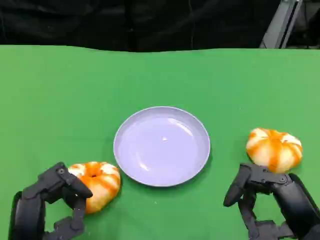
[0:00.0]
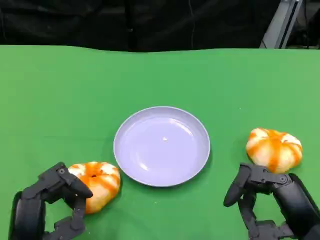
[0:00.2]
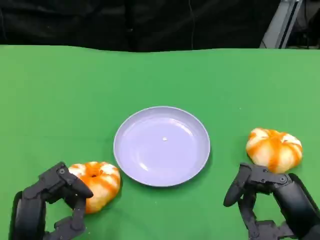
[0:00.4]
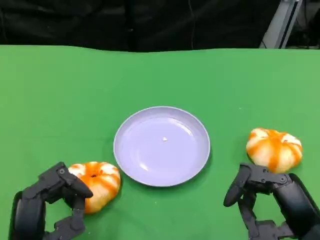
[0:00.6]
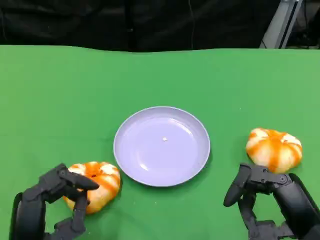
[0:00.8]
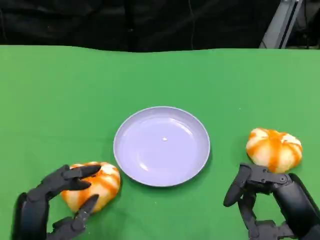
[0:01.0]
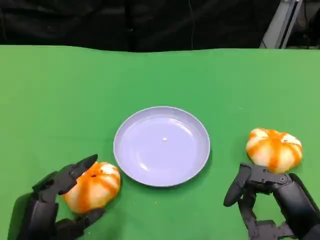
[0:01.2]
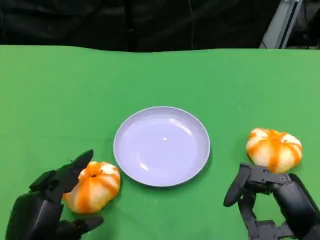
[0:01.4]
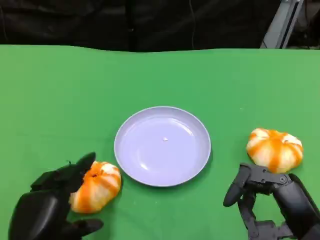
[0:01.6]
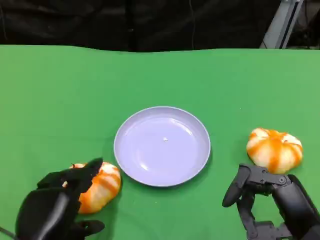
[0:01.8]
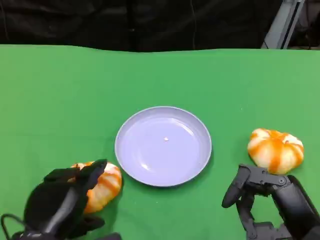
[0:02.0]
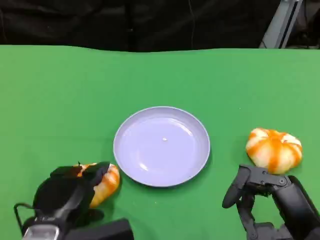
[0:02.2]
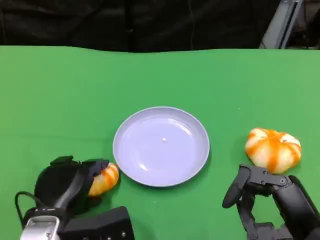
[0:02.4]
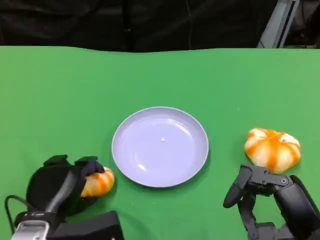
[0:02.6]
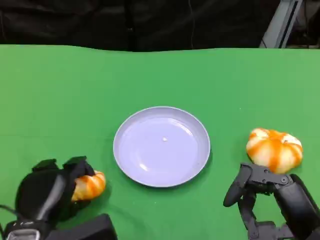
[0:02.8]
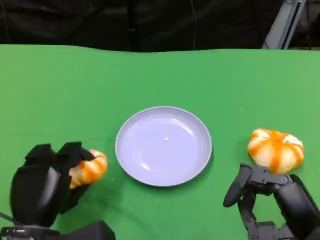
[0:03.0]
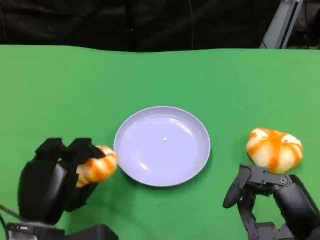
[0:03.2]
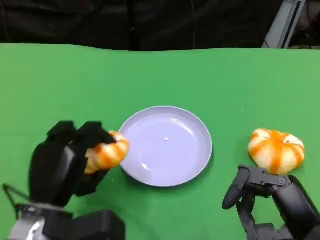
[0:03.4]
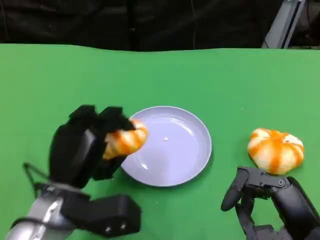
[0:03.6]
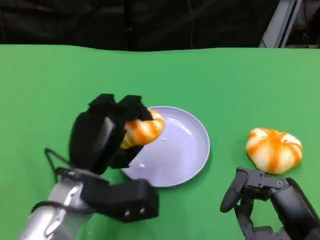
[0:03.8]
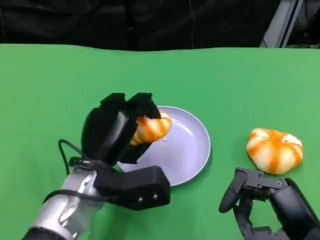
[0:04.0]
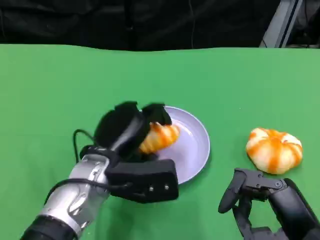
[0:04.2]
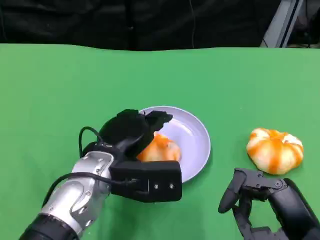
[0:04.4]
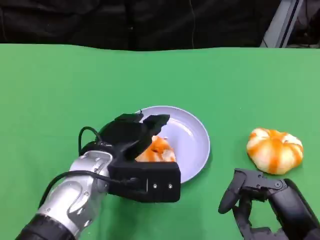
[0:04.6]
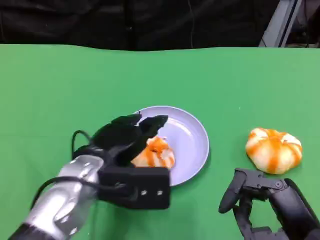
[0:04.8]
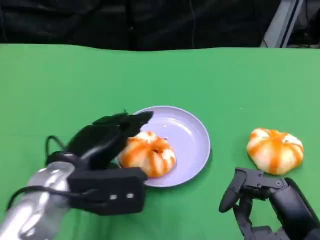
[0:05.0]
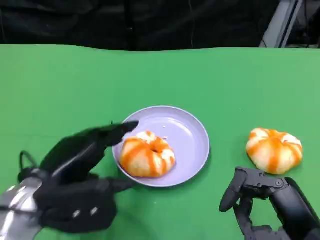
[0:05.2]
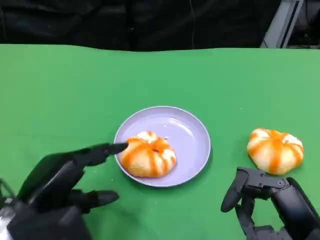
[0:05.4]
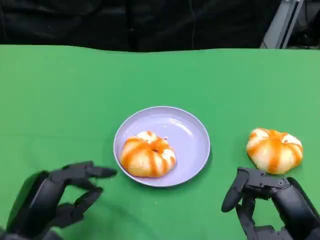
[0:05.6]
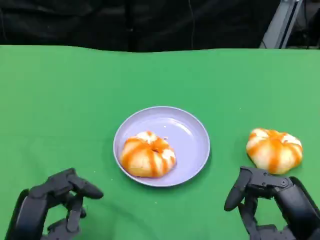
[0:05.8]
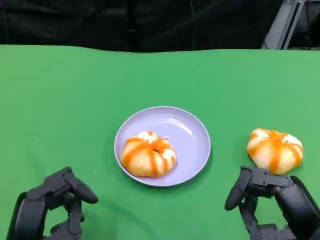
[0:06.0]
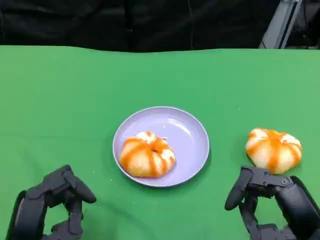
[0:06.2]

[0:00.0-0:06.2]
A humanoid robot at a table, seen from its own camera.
Task of the whole recording: Grasp the bread from the table and place it into the plate.
0:03.2 to 0:04.6: The left hand is displaced to the right and forward by roughly 10 cm.
0:04.6 to 0:06.2: The left hand travels backward and to the left by about 15 cm.

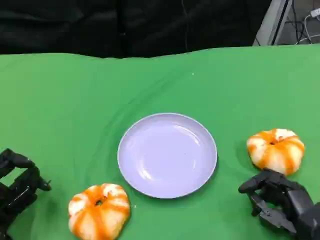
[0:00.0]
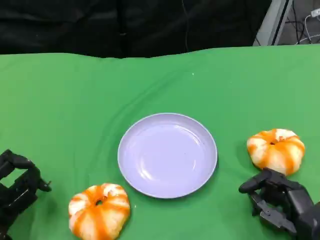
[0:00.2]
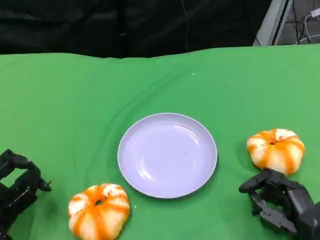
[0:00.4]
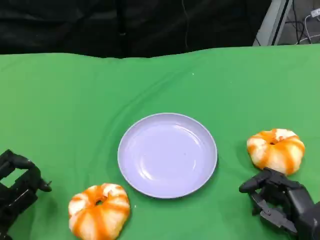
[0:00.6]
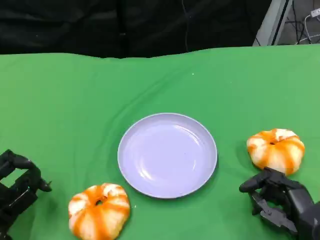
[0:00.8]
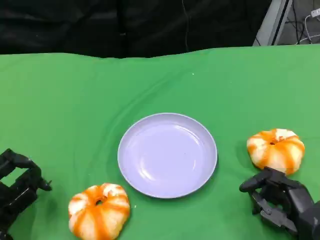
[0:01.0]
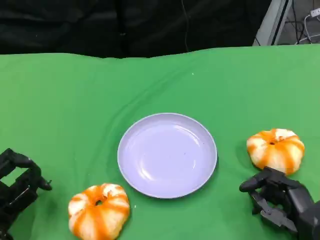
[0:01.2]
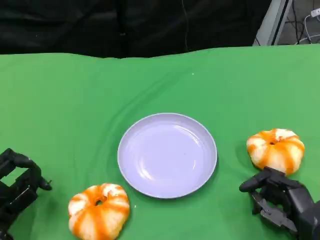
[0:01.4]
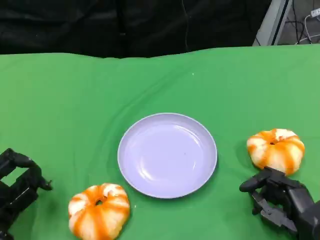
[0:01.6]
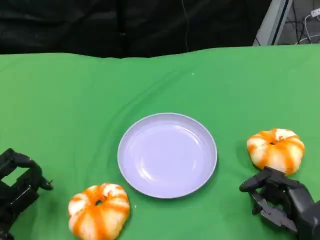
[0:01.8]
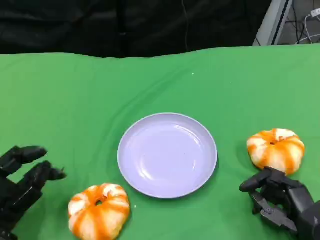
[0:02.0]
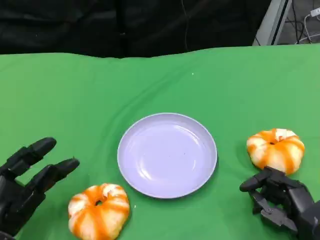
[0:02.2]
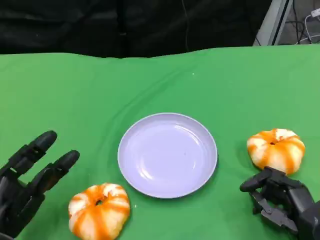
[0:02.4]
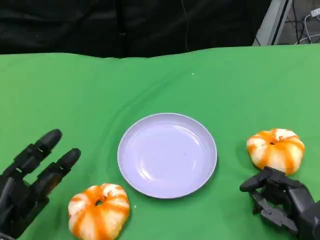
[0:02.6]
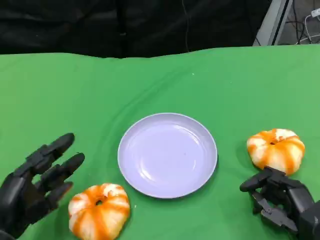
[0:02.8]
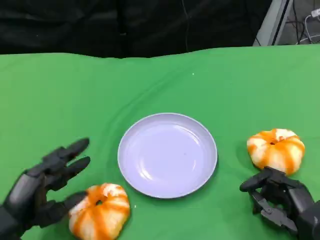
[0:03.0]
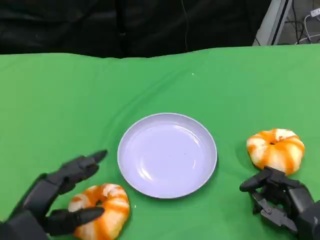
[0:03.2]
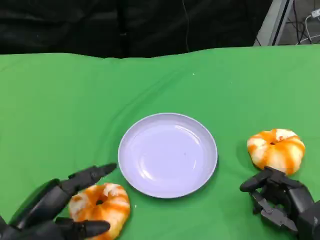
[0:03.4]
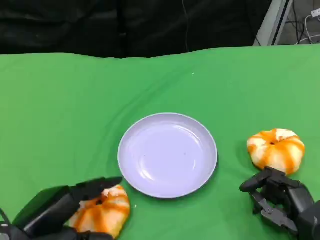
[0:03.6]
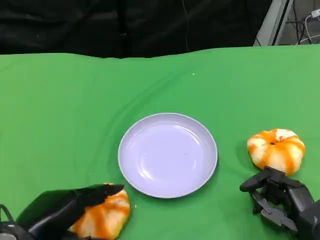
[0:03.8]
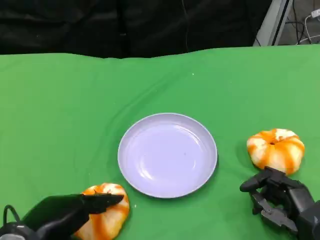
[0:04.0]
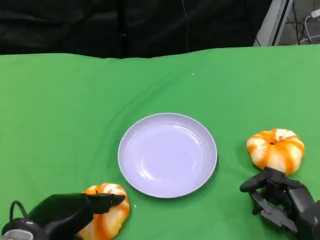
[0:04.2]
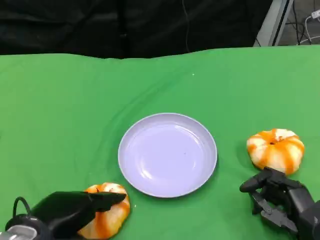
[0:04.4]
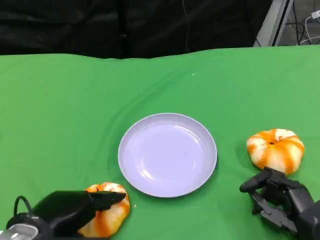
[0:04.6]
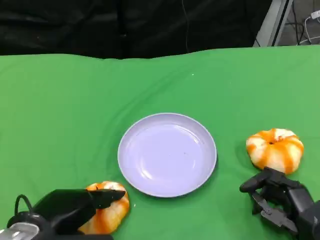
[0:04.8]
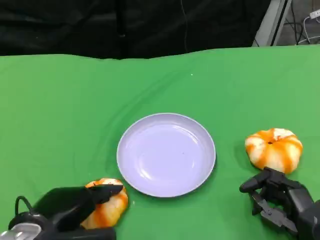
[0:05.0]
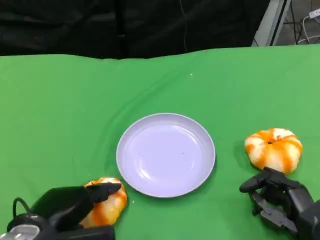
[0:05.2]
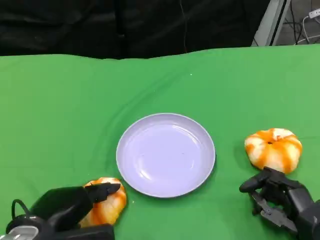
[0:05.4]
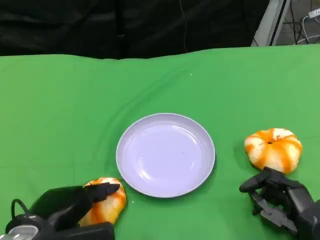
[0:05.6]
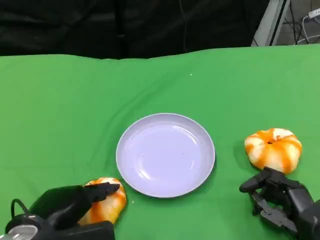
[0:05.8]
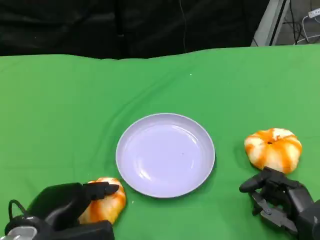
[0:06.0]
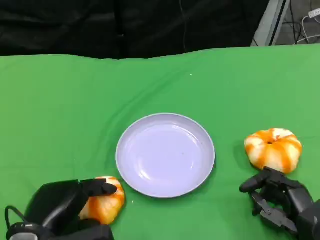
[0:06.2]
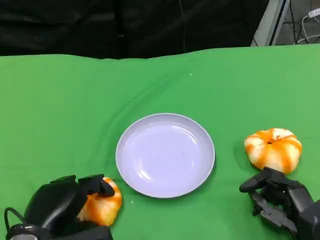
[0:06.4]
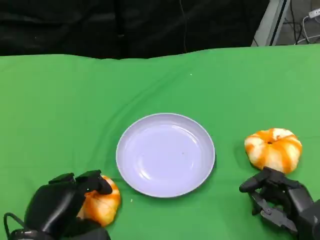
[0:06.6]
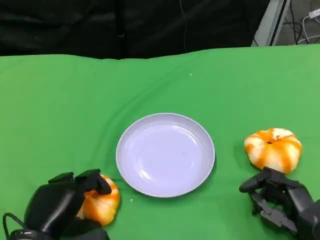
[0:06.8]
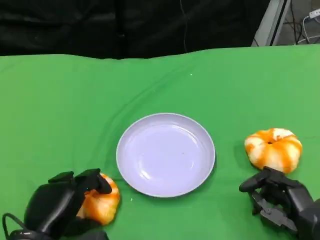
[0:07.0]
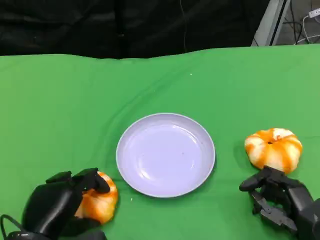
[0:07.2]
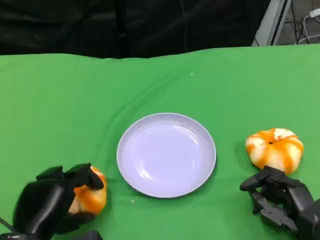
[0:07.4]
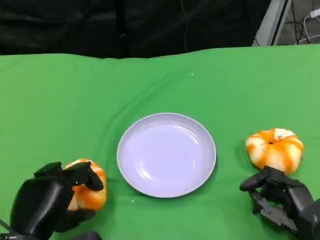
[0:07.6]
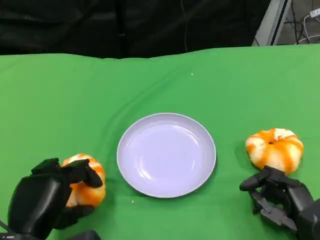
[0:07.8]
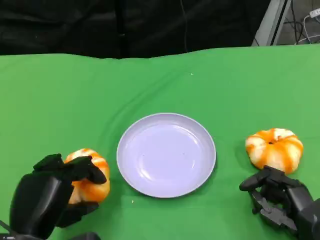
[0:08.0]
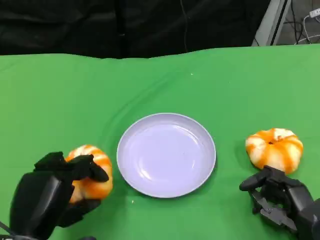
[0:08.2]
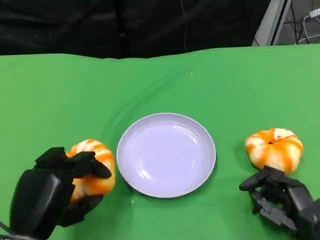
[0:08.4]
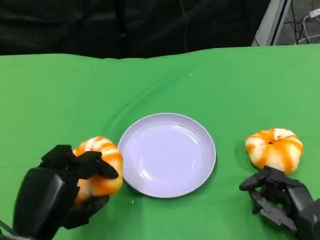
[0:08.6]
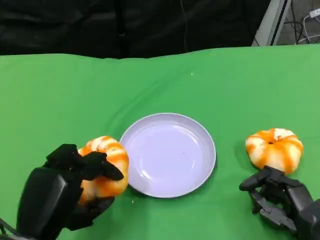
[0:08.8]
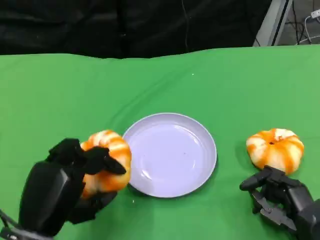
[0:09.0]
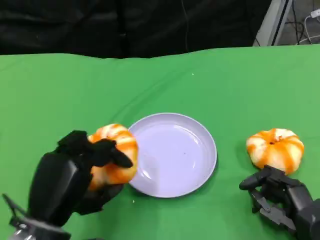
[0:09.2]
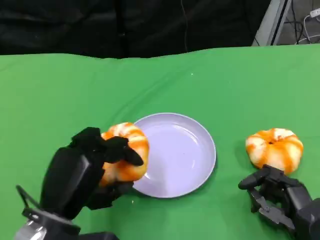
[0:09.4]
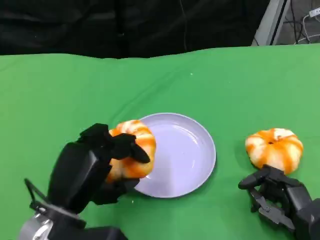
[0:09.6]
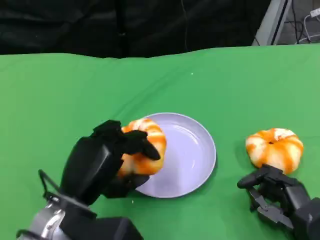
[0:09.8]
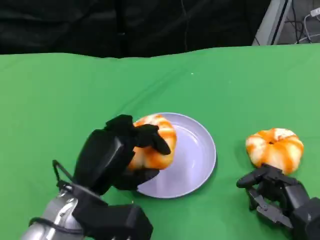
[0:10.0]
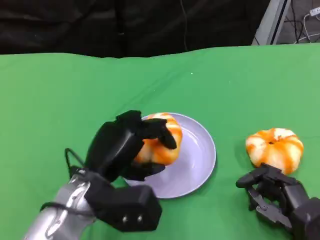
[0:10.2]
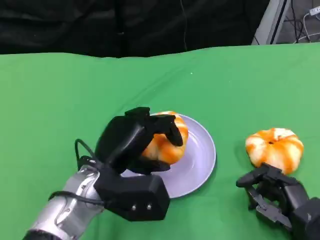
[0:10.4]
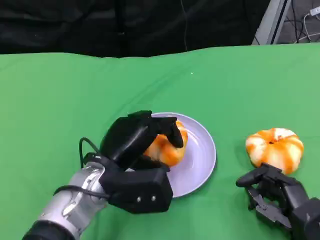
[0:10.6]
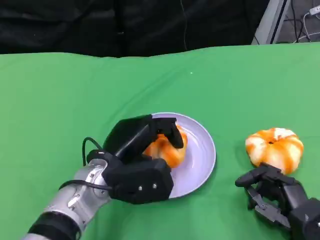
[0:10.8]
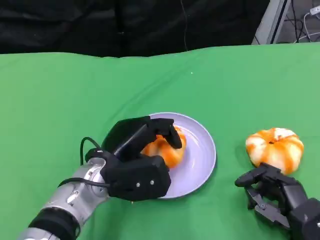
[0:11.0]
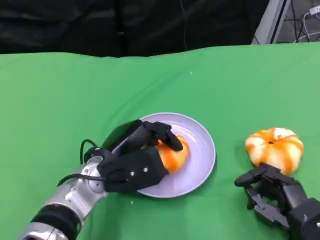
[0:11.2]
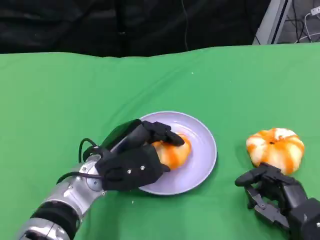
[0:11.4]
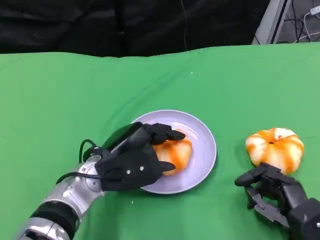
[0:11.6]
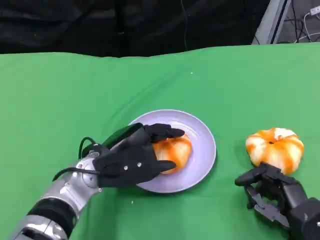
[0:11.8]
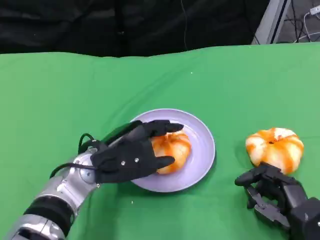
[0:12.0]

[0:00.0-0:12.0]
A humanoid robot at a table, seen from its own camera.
Task of the whole recording: Grasp the bread from the table and place it into the plate.
0:00.0 to 0:01.6: The two hands keep their place.
0:03.0 to 0:04.4: The left hand shifts by roughly 5 cm.
0:04.4 to 0:06.0: The hands move only a little.
0:09.0 to 0:10.4: The left hand heads forward and to the right, covering about 10 cm.

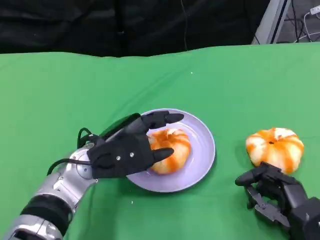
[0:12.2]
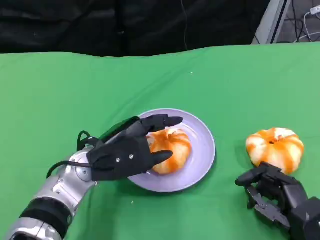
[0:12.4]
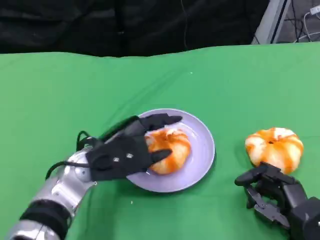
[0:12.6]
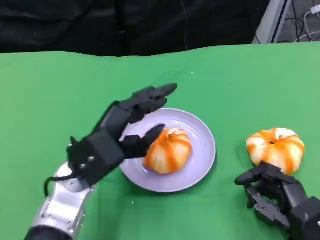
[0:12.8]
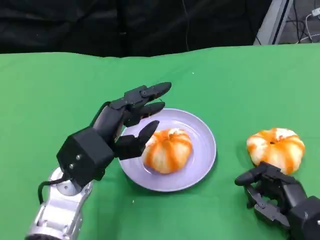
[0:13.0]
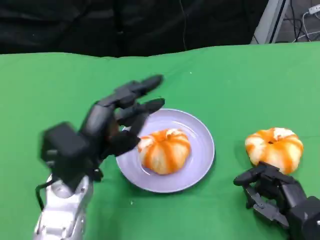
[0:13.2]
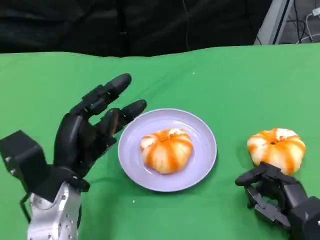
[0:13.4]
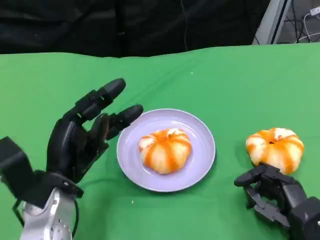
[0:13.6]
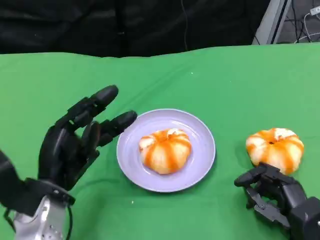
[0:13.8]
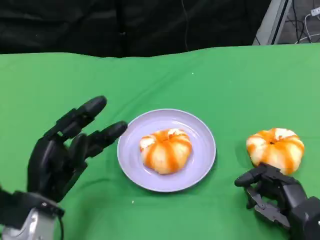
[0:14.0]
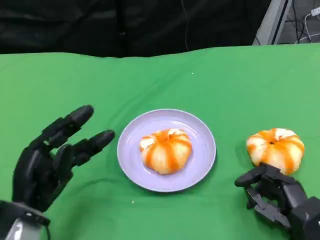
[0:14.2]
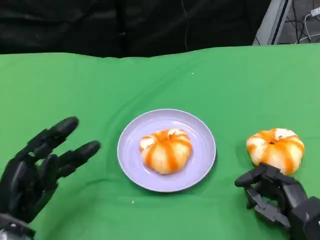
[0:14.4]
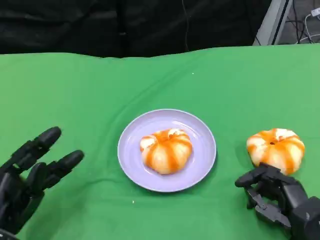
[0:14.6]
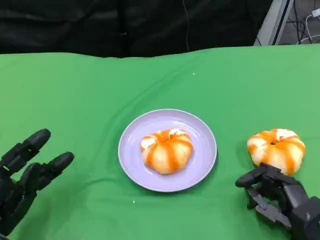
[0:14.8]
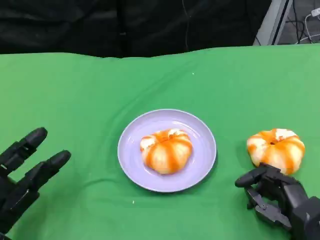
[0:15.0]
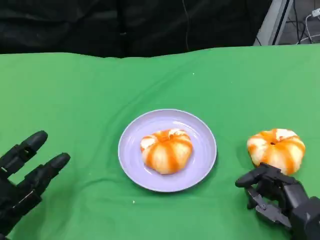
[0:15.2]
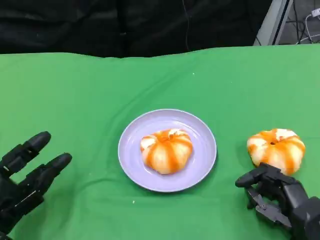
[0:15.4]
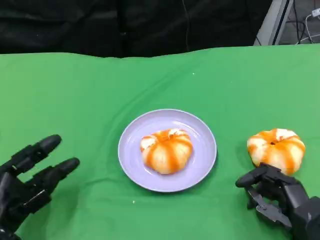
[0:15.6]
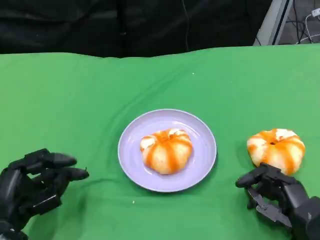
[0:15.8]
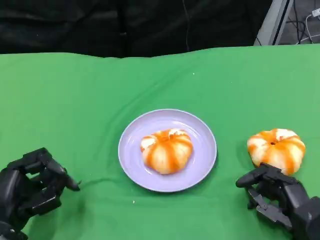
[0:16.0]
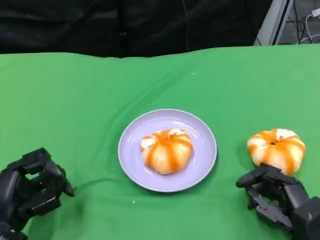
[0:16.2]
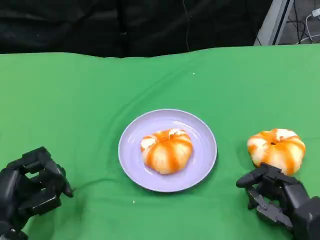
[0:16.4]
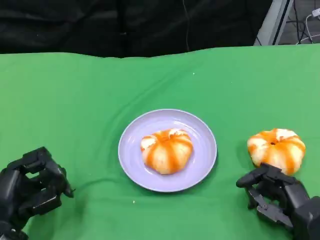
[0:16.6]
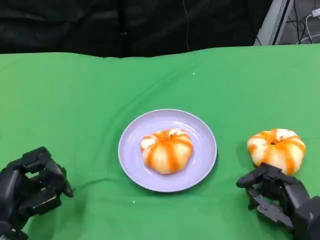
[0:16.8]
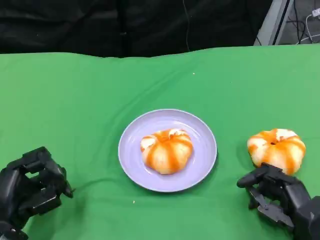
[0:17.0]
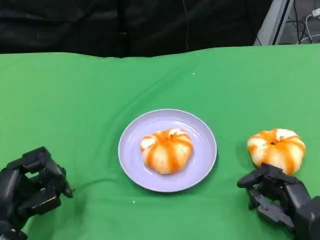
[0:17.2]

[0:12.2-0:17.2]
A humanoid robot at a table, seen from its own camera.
Task of the whole recording: Grasp the bread from the table and place it into the plate.
0:12.2 to 0:13.8: The left hand heads to the left and backward, covering some 10 cm.
0:13.8 to 0:15.6: The left hand travels to the left and downward by some 10 cm.
0:15.6 to 0:17.2: The hands stay close to where they were, moving slightly.
